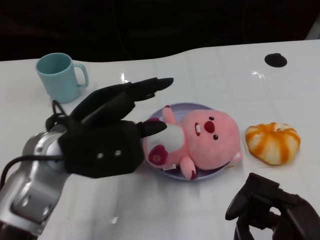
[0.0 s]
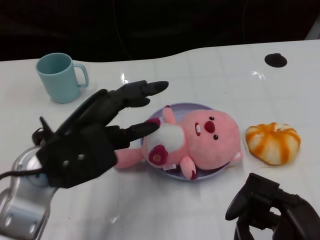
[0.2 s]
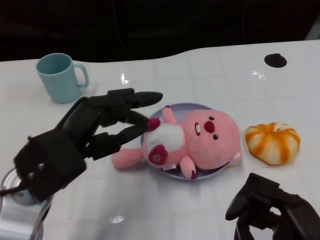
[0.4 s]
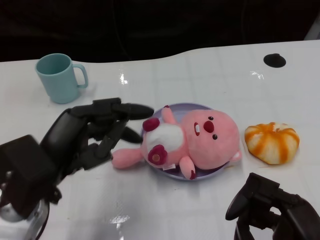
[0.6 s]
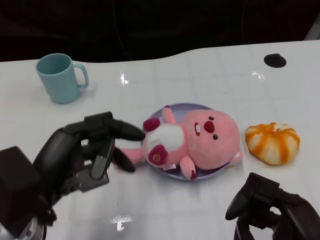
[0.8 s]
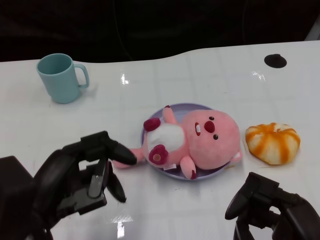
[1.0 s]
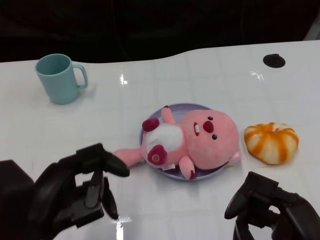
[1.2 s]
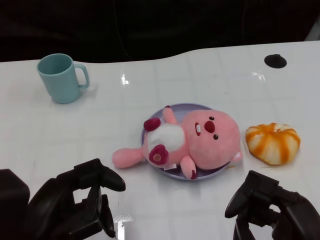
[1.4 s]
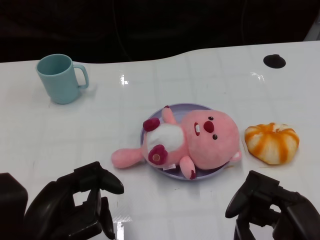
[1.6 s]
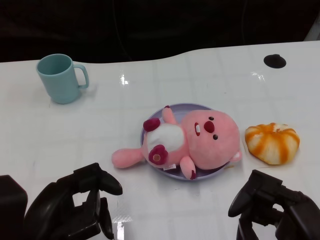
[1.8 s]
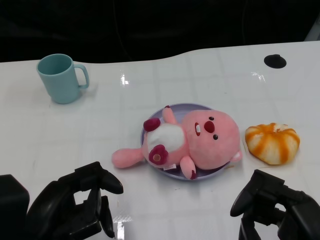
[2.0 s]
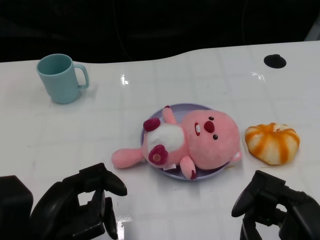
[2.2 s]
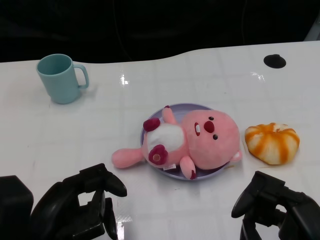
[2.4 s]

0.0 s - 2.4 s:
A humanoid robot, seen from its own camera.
Task of the whole recording: Pick up the doll on one side of the plate and place it into the plate.
0.0 s - 1.2 s: The left hand shifts roughly 10 cm backward and to the left.
1.2 s - 2.4 s: The hands stay close to where they were, moving slightly.

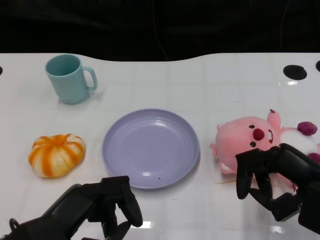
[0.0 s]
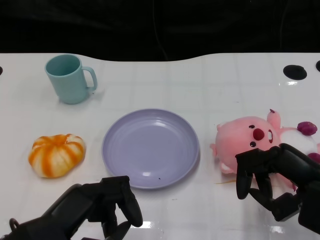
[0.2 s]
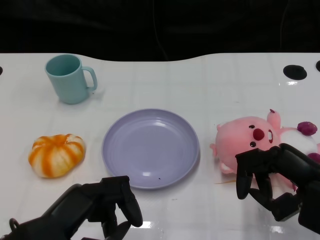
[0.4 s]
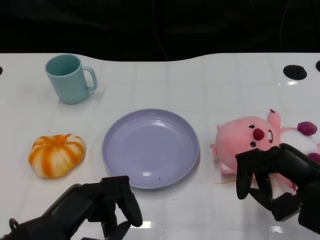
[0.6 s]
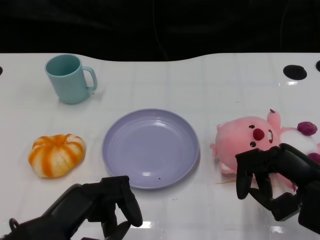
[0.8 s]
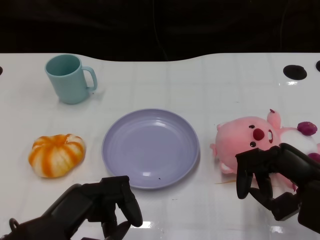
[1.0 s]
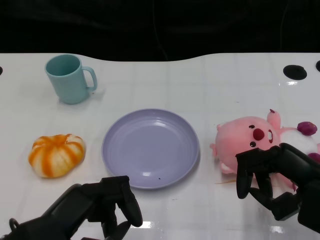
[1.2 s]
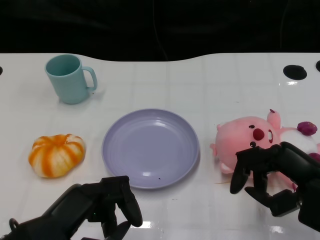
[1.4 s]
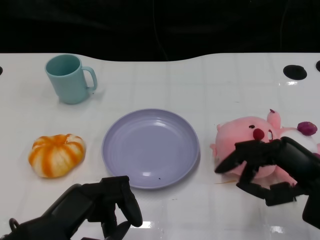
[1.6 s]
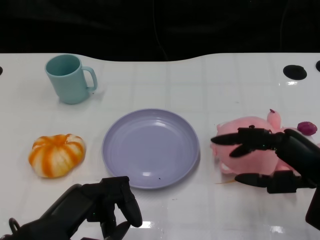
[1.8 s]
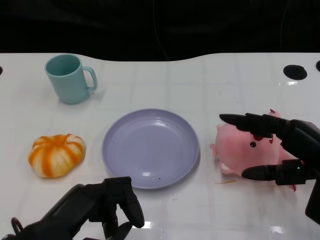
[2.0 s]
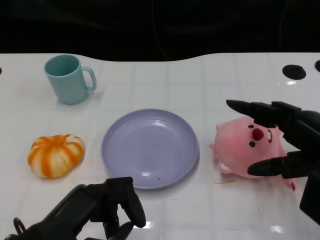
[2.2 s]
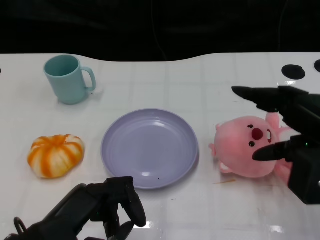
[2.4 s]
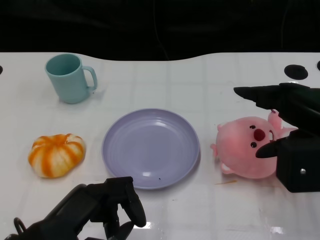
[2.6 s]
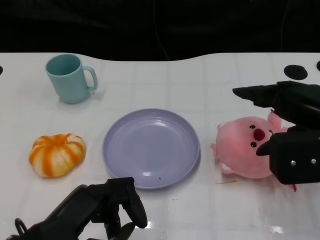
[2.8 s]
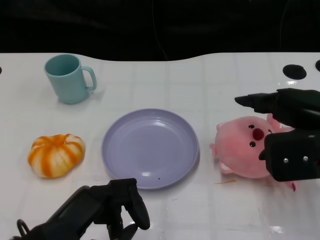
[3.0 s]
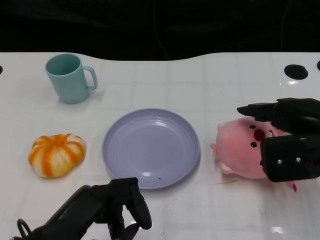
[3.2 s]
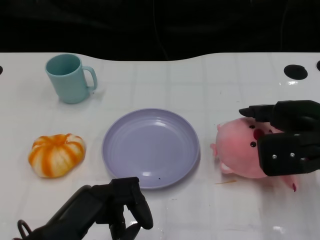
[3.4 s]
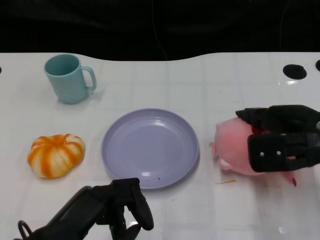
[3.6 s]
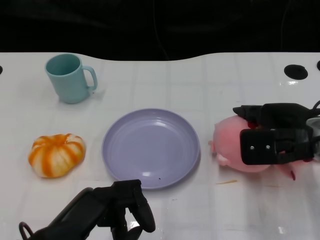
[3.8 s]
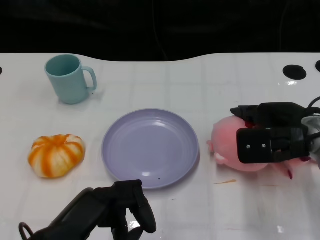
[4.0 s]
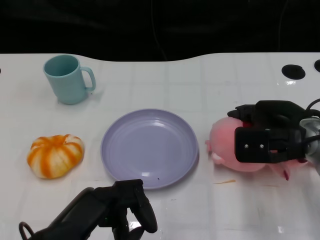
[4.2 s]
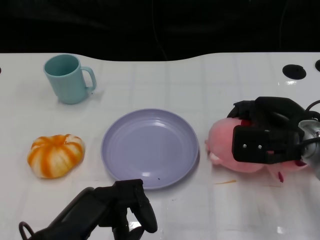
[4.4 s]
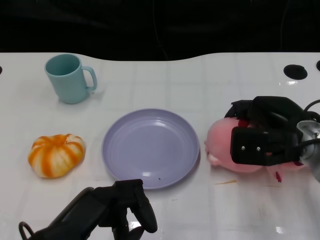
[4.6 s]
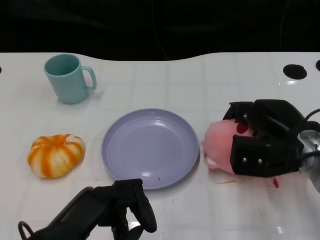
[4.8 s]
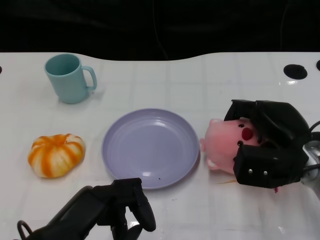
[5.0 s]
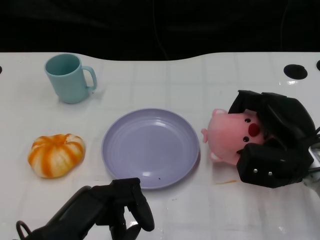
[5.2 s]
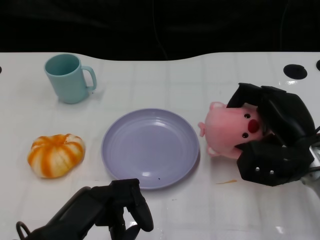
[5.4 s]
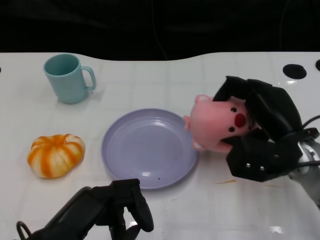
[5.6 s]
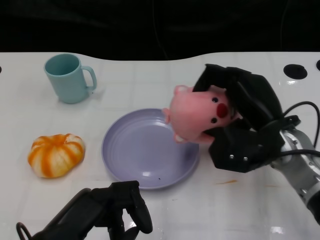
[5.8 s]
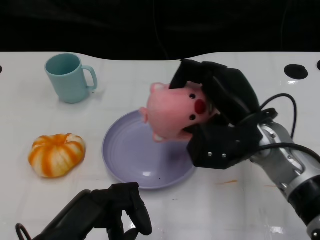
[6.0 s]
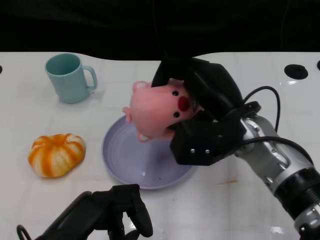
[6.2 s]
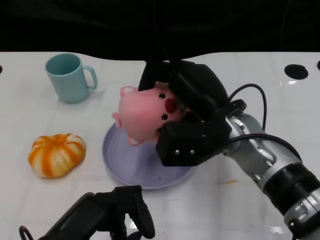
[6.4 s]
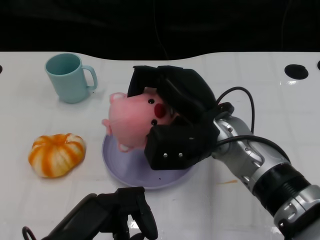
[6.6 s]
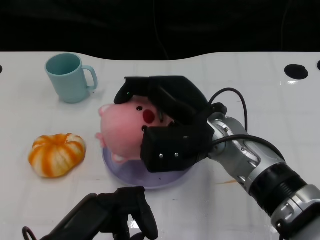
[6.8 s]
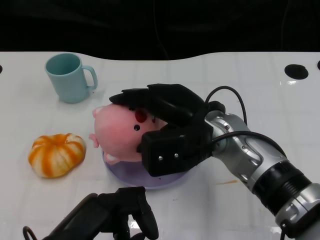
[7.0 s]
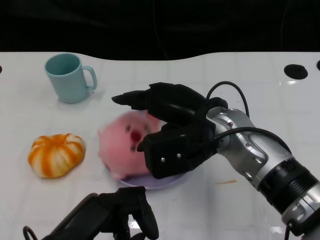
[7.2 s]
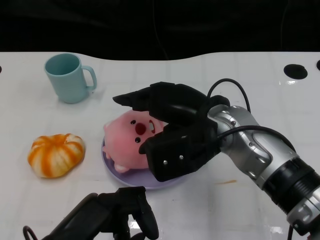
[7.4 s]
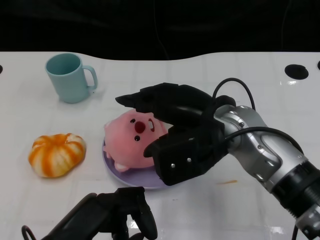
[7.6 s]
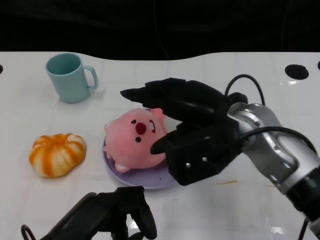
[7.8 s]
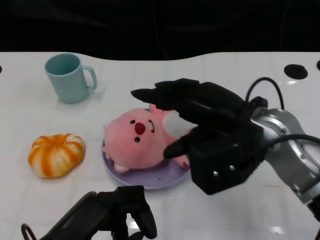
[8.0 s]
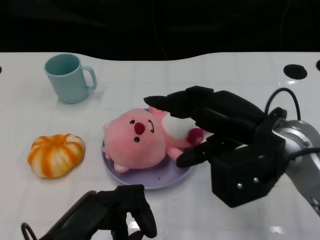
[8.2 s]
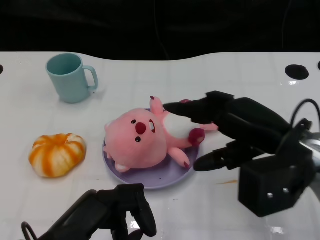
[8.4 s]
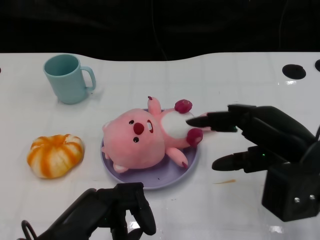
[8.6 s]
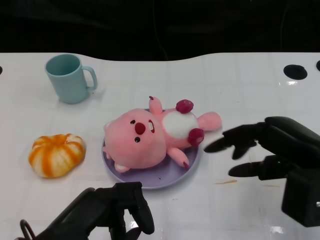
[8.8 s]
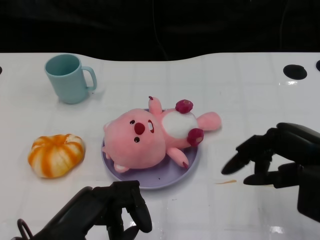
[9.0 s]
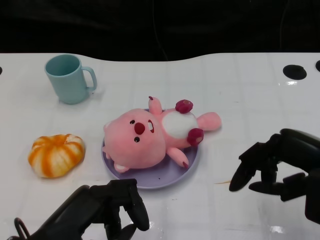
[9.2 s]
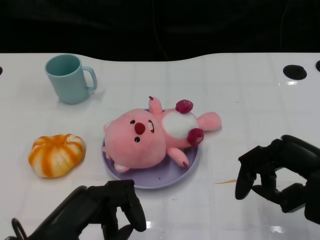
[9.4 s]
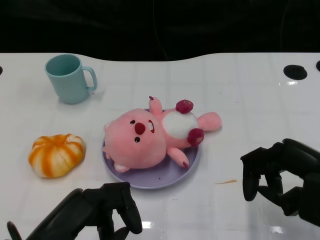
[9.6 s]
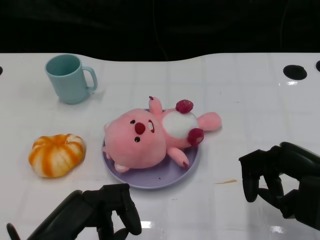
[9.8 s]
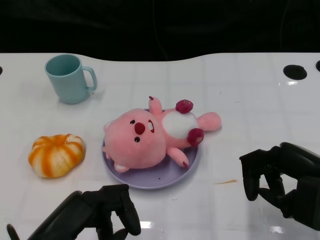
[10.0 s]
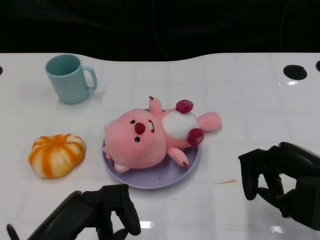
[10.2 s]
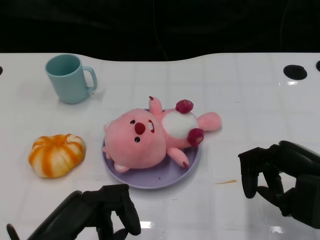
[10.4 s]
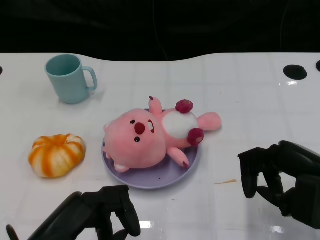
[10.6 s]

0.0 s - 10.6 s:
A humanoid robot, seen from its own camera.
Task of the whole recording: Pick up the doll on the other side of the plate and place it into the plate.
Step, 1.4 s - 5.6 s: Grasp the pink doll with the right gripper.
Step, 5.8 s - 8.2 s: Place the pink doll into the plate with the right gripper.
1.6 s - 3.0 s: The right hand travels upward and forward by approximately 10 cm.
3.0 s - 4.6 s: The right hand is displaced downward and forward by some 10 cm.
4.6 s - 6.0 s: The right hand moves to the left, roughly 5 cm.
6.0 s - 7.6 s: The right hand shifts by approximately 5 cm.
7.6 s - 9.0 s: The right hand shifts approximately 20 cm to the right and backward.
9.0 s - 10.6 s: The hands move only a little.

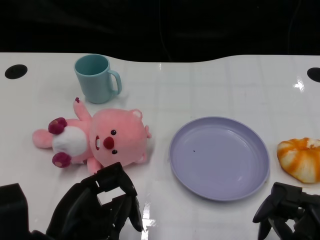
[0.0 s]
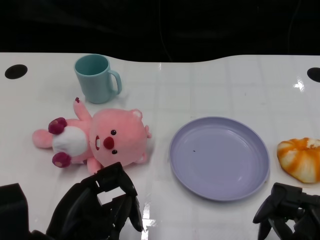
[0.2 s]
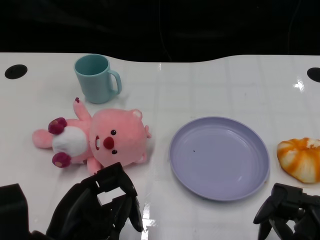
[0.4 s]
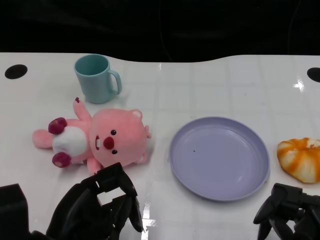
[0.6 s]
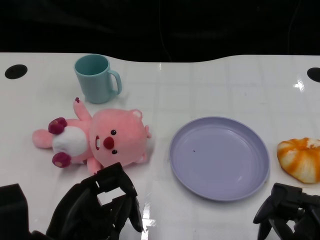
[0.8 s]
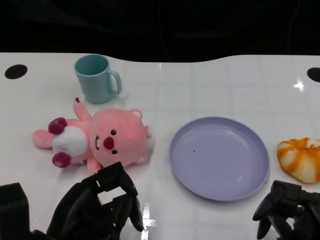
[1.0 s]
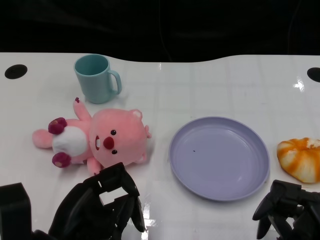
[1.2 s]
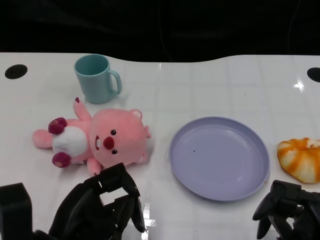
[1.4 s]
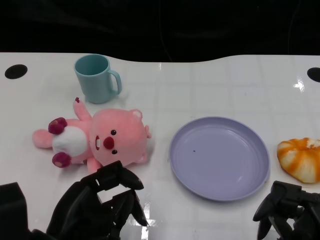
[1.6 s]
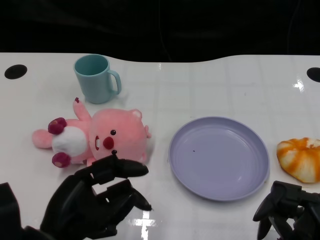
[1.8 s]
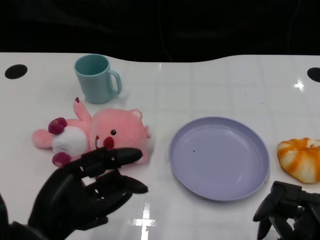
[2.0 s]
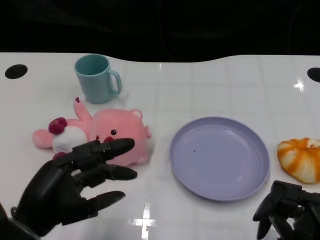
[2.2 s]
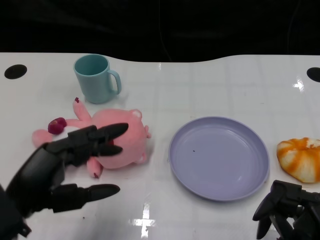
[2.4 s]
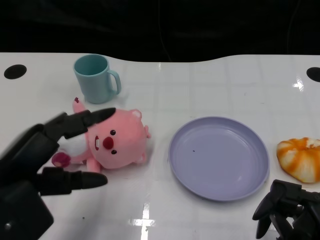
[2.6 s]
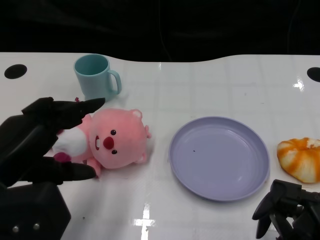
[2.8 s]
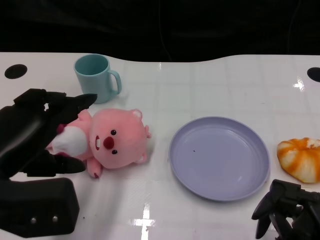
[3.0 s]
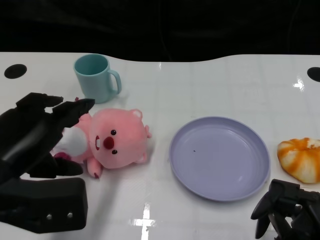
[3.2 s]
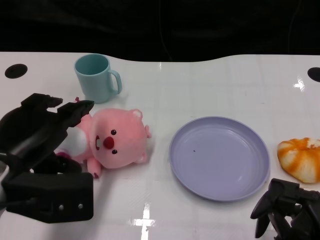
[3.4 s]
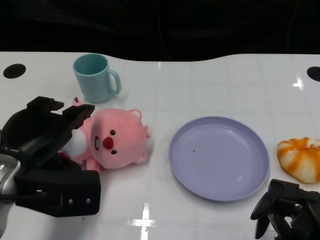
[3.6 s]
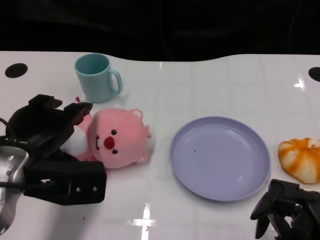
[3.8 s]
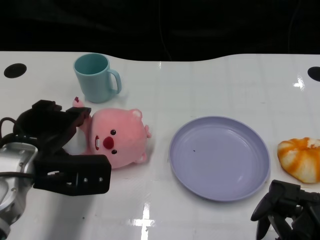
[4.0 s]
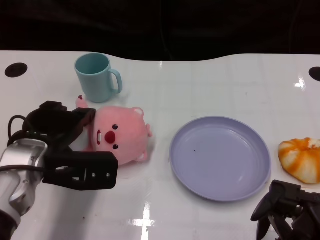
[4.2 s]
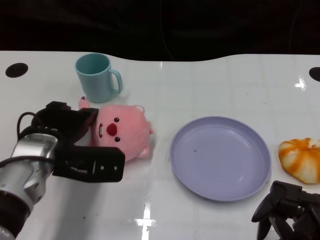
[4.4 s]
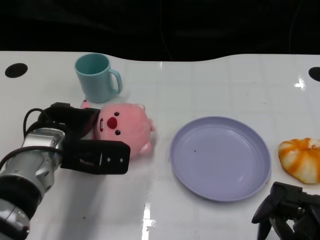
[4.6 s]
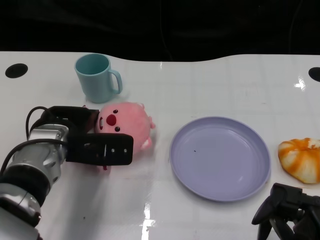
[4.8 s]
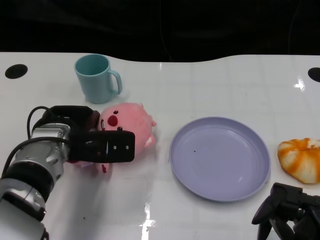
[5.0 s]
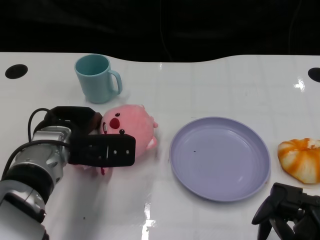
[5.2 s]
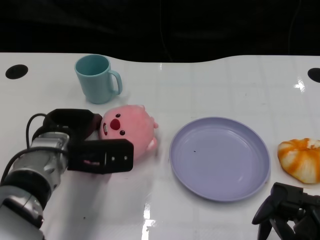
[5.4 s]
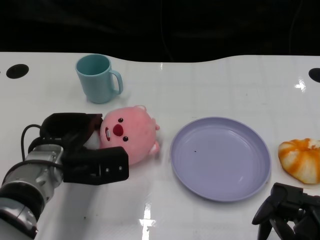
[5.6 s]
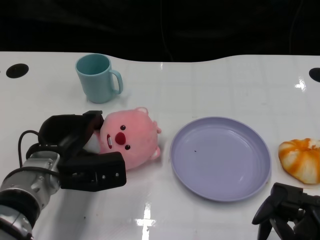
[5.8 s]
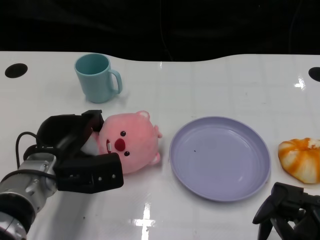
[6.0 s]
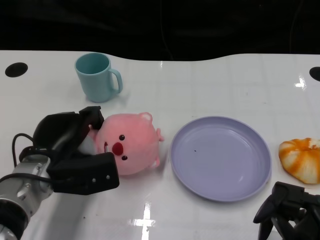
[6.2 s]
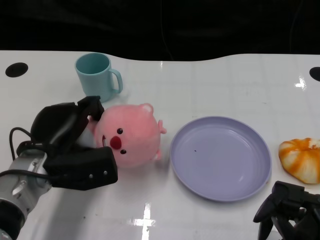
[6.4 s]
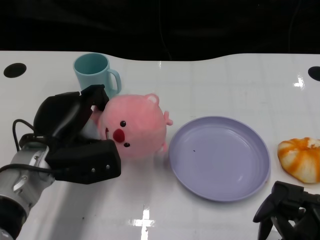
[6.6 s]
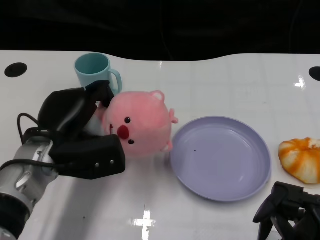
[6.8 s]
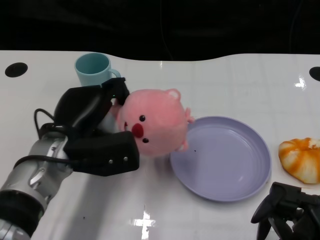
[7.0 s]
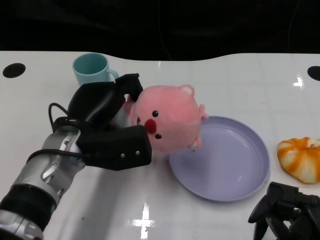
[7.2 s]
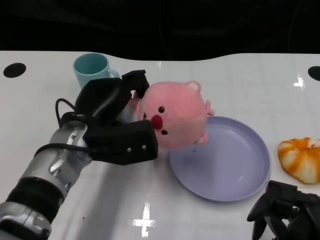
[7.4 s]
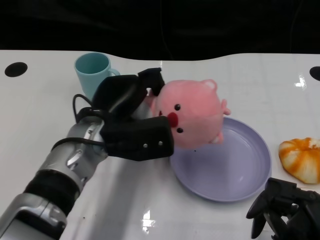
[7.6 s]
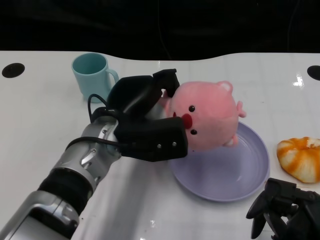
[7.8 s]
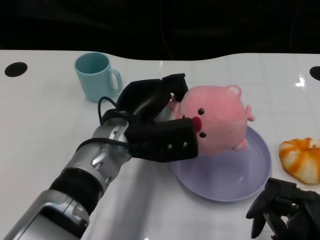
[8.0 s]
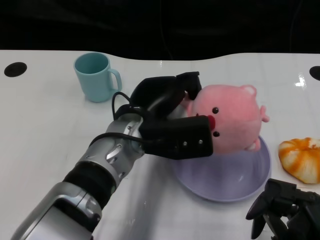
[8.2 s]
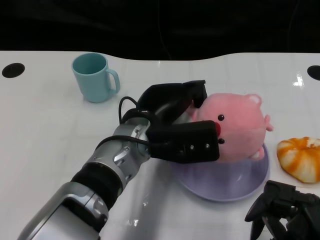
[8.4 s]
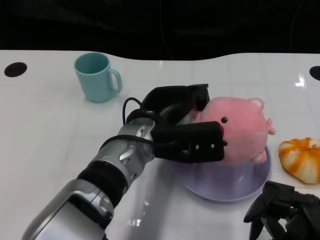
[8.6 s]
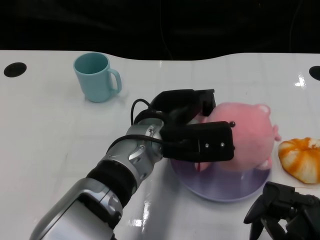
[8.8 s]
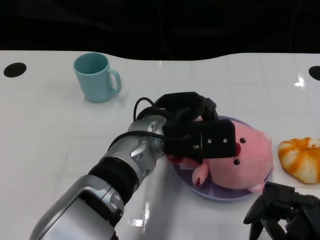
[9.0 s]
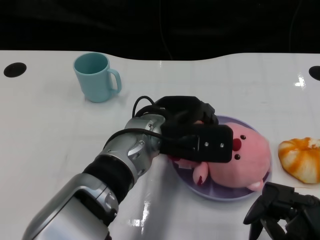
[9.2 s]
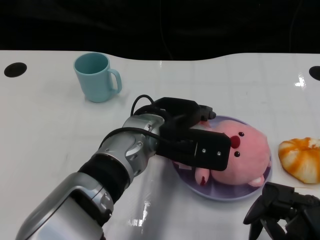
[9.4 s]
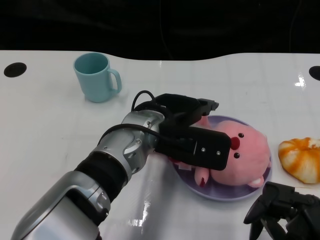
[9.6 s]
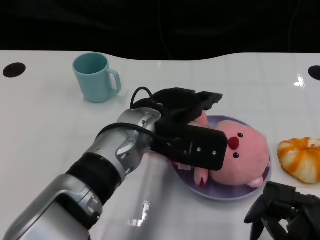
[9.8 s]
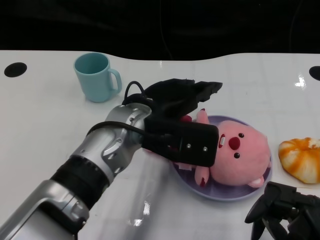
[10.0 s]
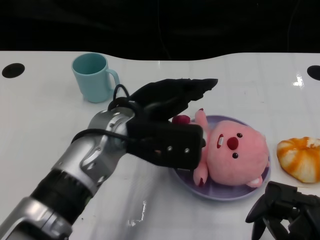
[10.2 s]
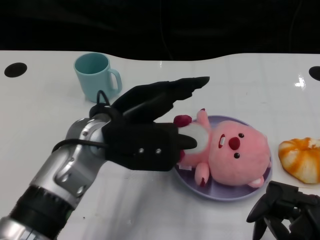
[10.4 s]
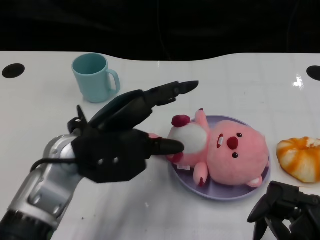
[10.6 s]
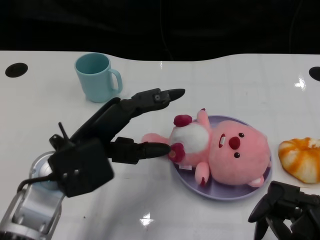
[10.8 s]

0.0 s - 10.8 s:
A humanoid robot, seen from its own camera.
Task of the whole recording: Pick up the doll on one side of the plate and place it into the plate.
Step, 1.6 s - 6.2 s: Grasp the pink doll with the left gripper.
Step, 6.4 s - 10.0 s: Place the pink doll into the plate with the left gripper.
1.6 s - 3.0 s: The left hand moves upward and to the left, roughly 10 cm.
3.0 s - 4.6 s: The left hand goes roughly 15 cm forward, downward and to the right.
6.2 s - 7.8 s: The left hand heads to the right and upward, covering approximately 10 cm.
7.8 s - 9.2 s: The left hand goes approximately 5 cm to the right.
9.2 s - 10.8 s: The left hand is displaced to the left by approximately 15 cm.
